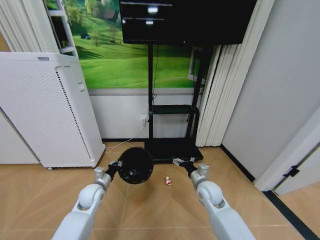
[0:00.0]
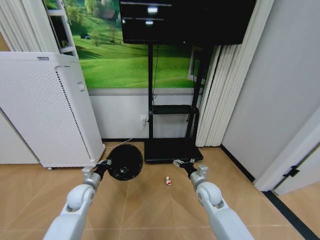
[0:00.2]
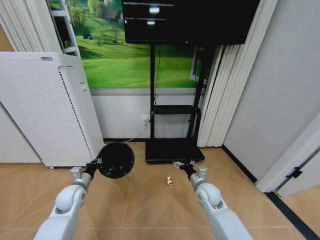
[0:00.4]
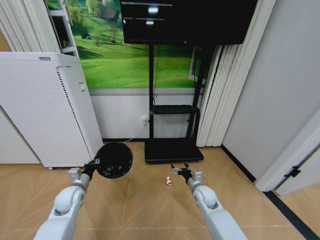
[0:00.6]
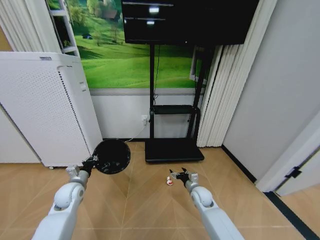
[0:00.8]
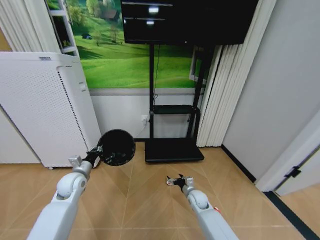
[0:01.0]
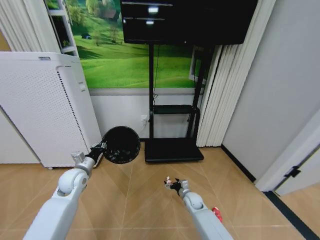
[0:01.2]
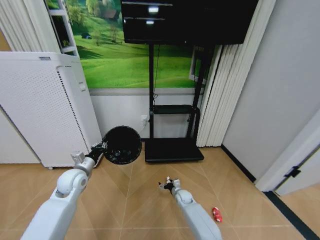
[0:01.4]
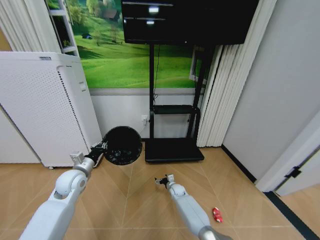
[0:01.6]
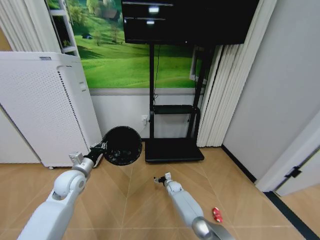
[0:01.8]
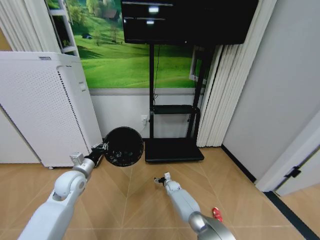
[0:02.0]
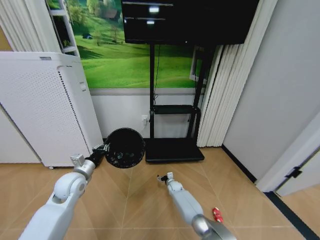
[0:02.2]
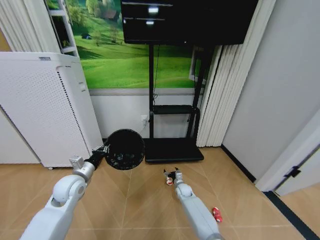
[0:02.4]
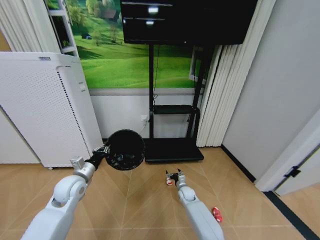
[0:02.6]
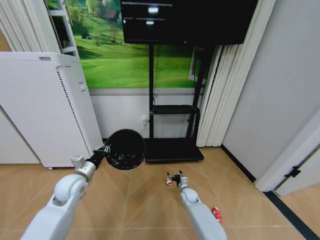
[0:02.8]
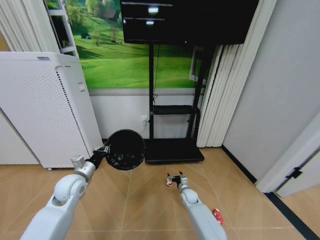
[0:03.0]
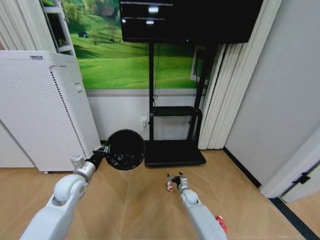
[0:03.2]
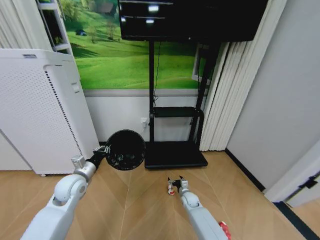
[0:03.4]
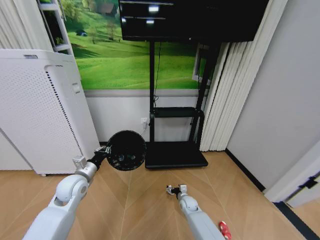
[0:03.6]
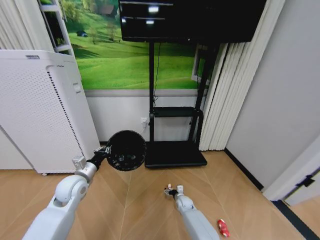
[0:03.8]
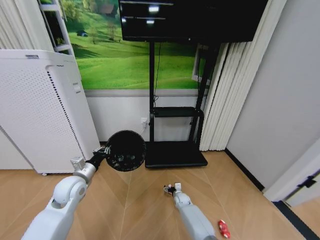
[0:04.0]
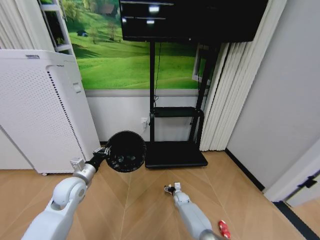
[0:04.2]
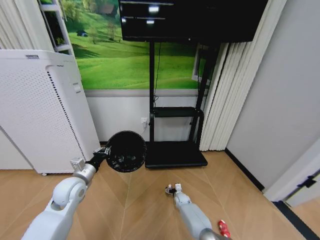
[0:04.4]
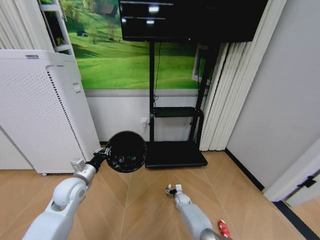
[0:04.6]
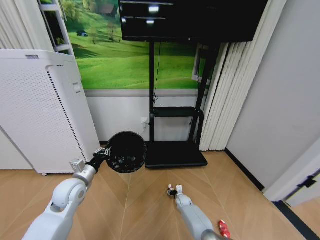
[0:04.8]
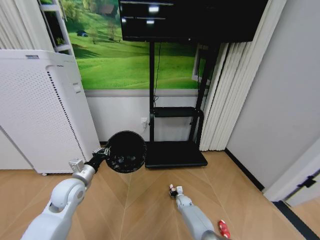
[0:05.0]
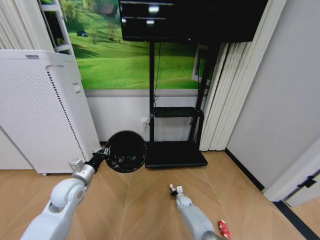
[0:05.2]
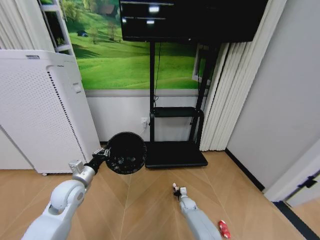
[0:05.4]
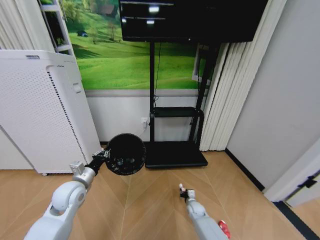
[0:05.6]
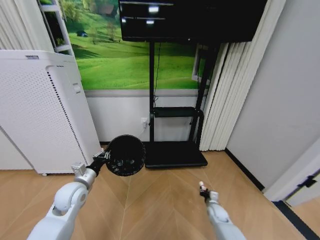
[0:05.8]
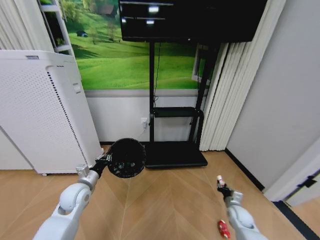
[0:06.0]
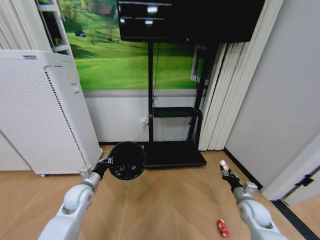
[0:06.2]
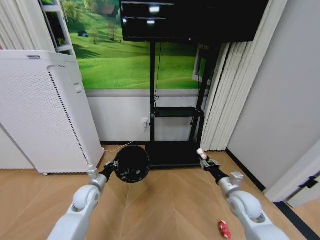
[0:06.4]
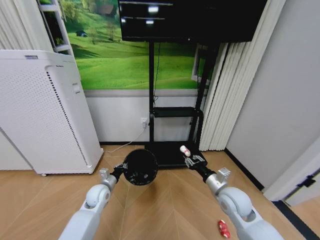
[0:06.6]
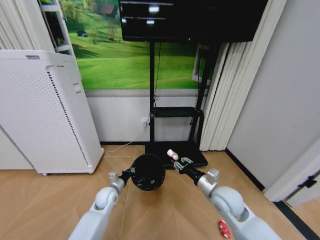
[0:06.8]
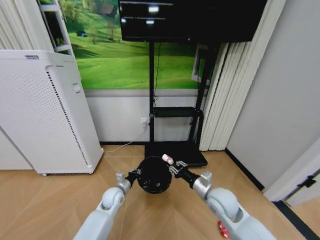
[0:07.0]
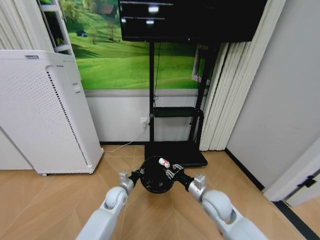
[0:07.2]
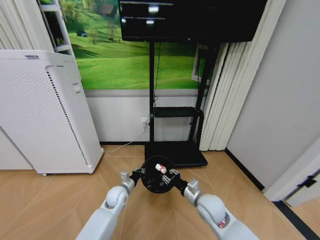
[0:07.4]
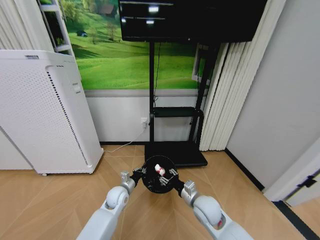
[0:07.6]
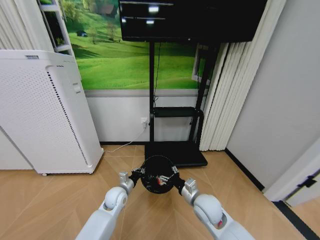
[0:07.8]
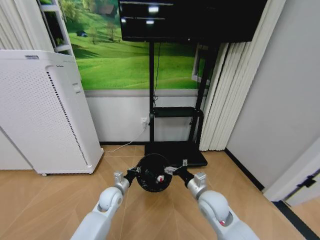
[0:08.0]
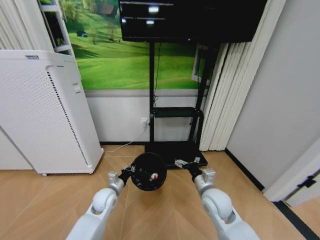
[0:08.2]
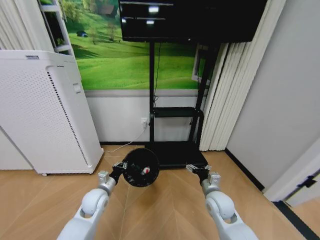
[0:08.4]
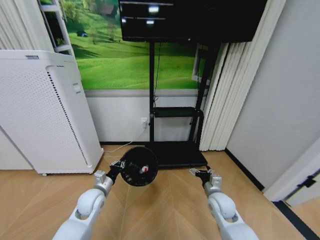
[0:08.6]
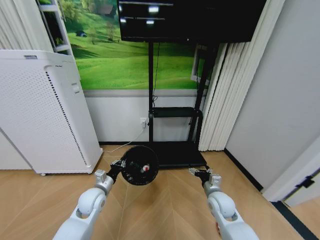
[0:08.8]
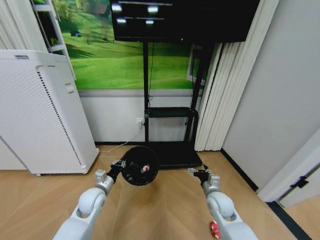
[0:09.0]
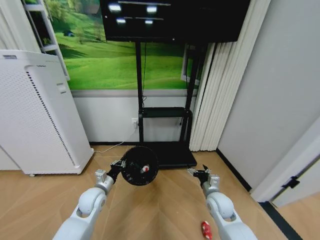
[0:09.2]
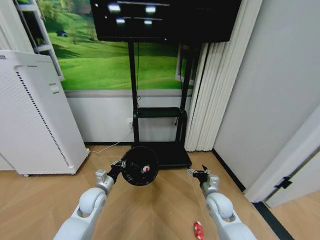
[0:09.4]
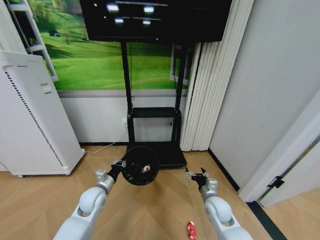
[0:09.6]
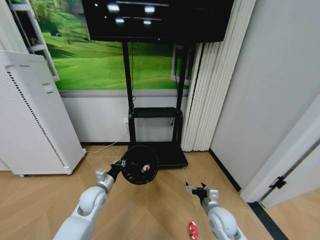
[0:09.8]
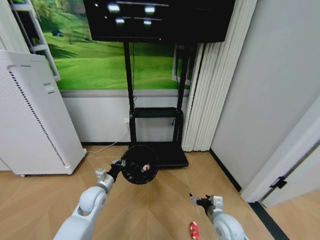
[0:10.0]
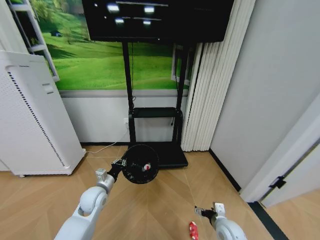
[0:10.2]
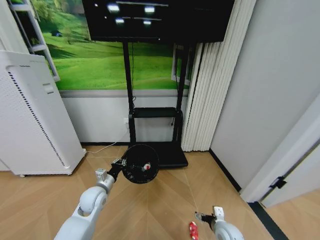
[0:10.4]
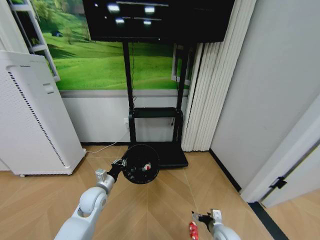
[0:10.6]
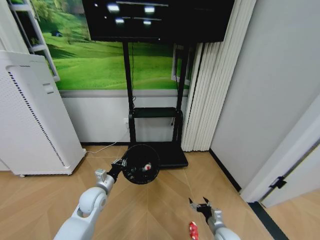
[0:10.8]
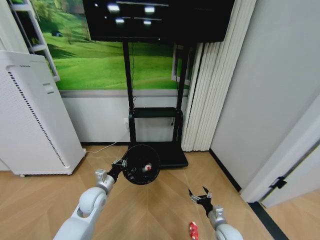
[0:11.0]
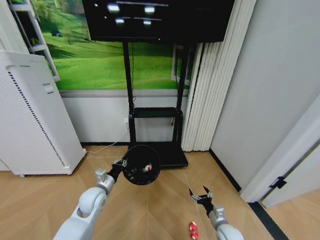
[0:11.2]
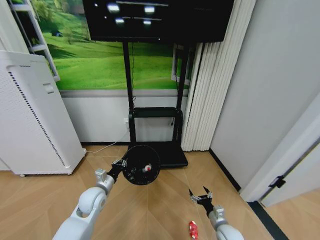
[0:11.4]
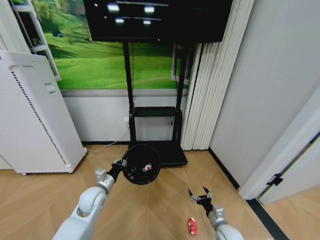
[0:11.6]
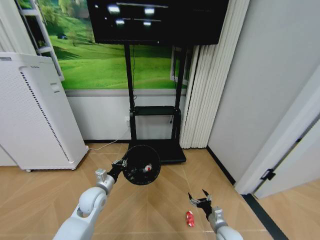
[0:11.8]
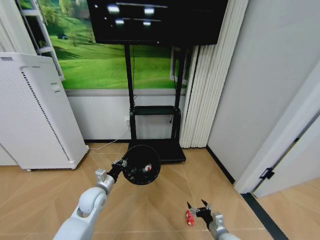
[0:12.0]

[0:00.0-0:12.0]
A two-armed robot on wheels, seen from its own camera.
Task of the whole recording: Pick up the trash bin and place the garbage on the floor into it.
0:00.0 to 0:01.6: The right gripper goes roughly 25 cm downward and forward. The left gripper is displaced upward and to the left by roughly 10 cm.
0:01.6 to 0:03.0: The right gripper travels to the right by approximately 5 cm.
0:03.0 to 0:04.4: The right gripper goes roughly 10 cm downward.
0:04.4 to 0:06.0: The right gripper heads to the right, upward and backward, covering roughly 30 cm, and closes.
0:06.0 to 0:07.6: The right gripper is displaced to the left and upward by some 25 cm, while the left gripper travels to the right and downward by some 15 cm.
0:07.6 to 0:09.0: The left gripper shifts approximately 10 cm to the left and upward. The right gripper is displaced to the right by about 10 cm, and opens its fingers.
0:09.0 to 0:10.4: The right gripper goes approximately 10 cm downward and backward.
0:10.4 to 0:12.0: The right gripper ends up about 5 cm from where it was.

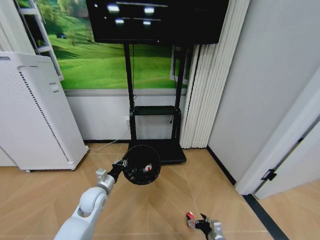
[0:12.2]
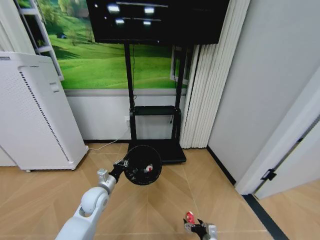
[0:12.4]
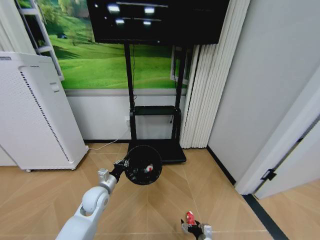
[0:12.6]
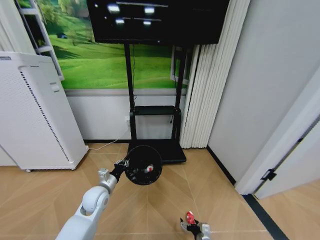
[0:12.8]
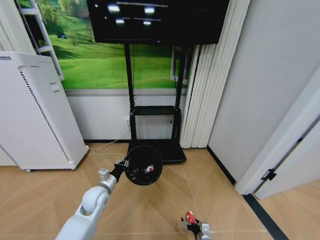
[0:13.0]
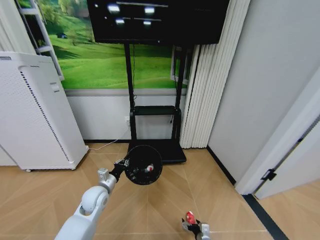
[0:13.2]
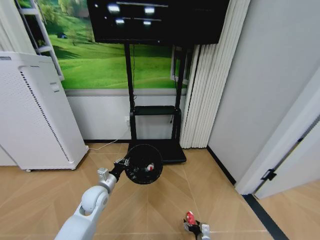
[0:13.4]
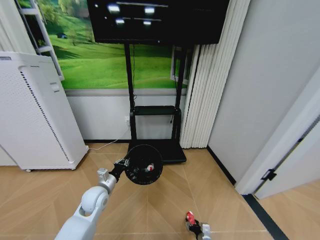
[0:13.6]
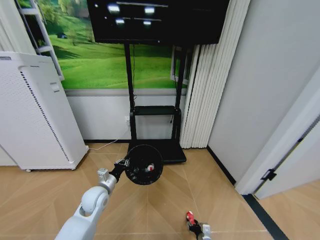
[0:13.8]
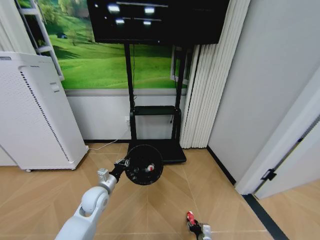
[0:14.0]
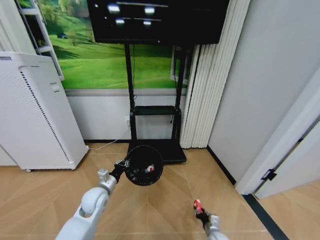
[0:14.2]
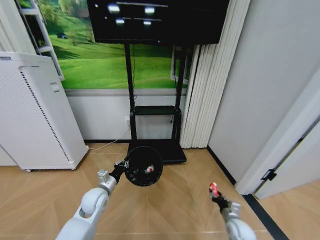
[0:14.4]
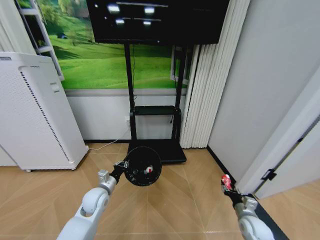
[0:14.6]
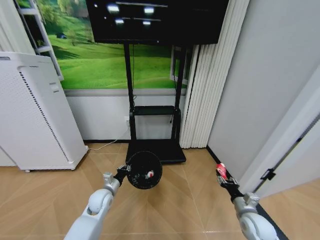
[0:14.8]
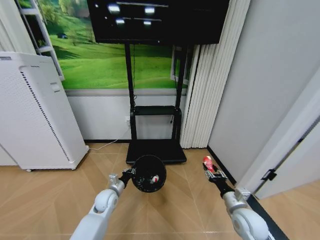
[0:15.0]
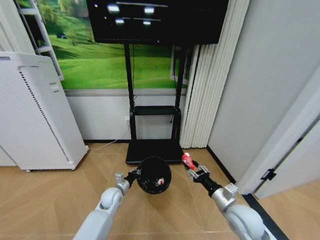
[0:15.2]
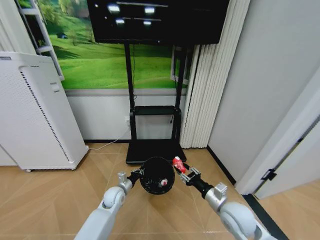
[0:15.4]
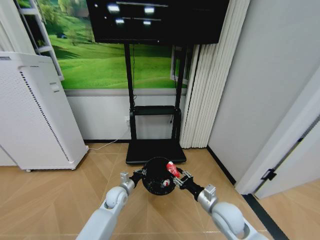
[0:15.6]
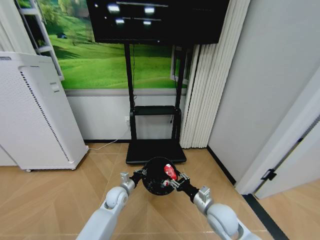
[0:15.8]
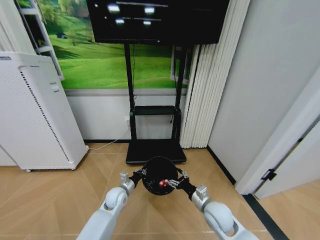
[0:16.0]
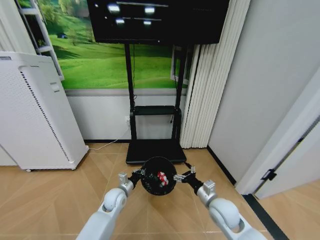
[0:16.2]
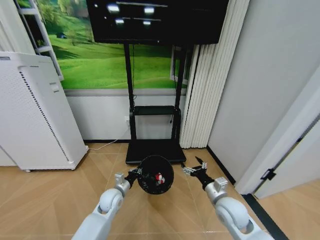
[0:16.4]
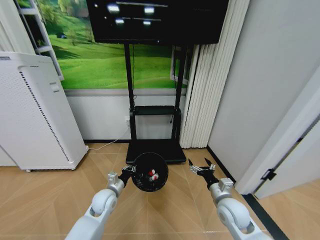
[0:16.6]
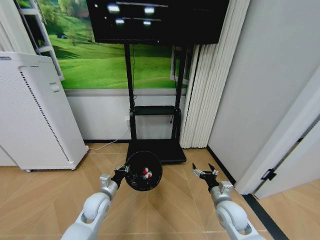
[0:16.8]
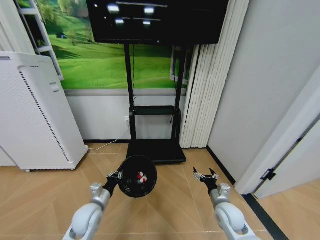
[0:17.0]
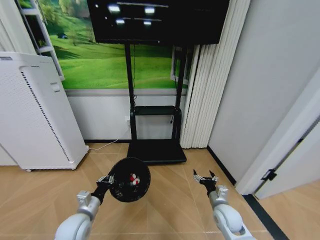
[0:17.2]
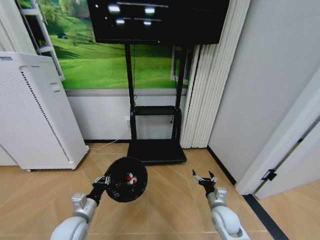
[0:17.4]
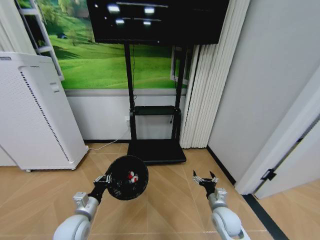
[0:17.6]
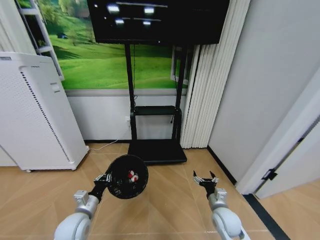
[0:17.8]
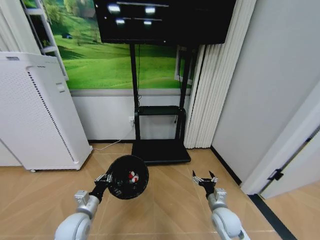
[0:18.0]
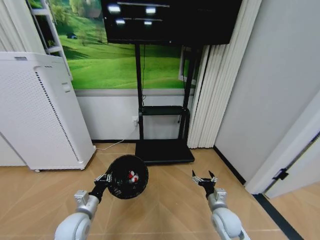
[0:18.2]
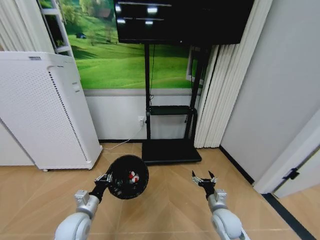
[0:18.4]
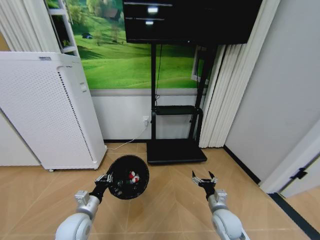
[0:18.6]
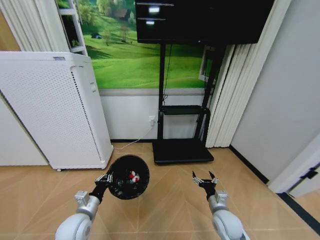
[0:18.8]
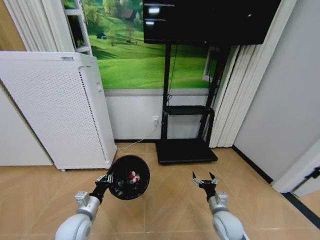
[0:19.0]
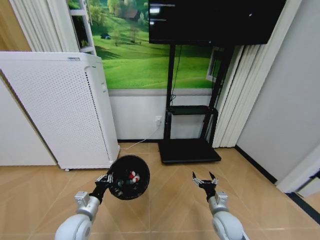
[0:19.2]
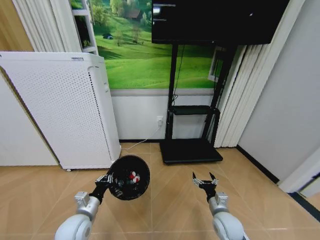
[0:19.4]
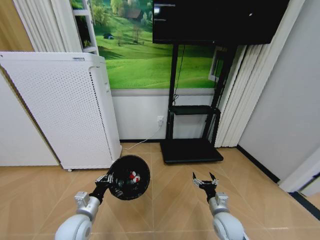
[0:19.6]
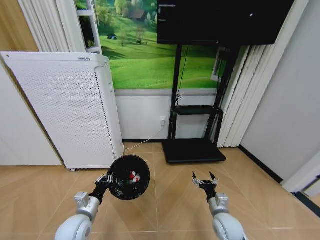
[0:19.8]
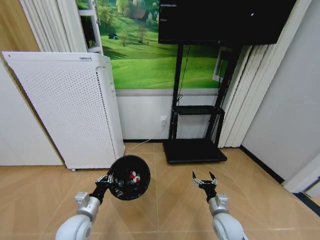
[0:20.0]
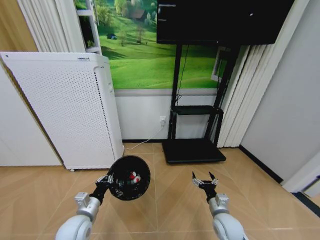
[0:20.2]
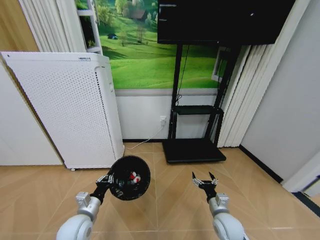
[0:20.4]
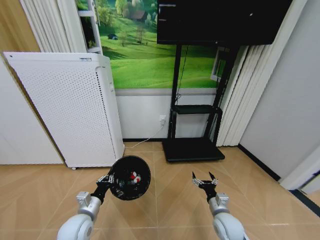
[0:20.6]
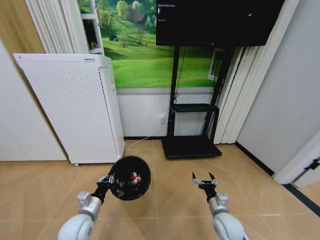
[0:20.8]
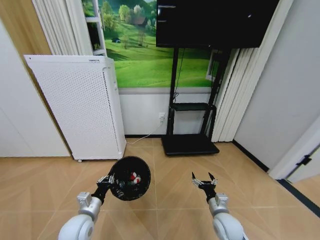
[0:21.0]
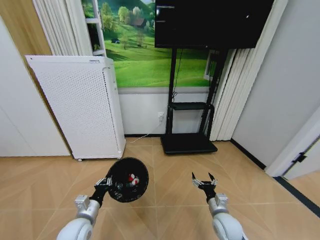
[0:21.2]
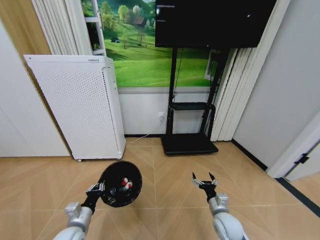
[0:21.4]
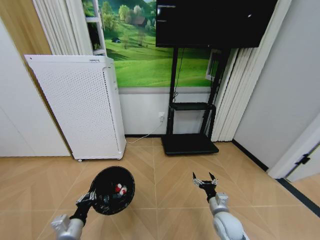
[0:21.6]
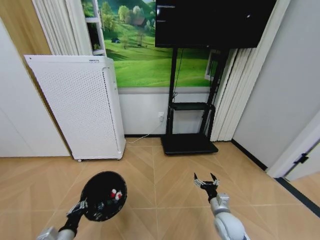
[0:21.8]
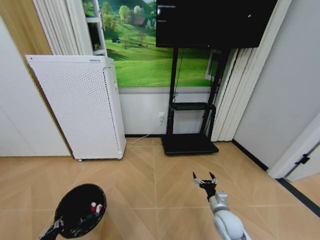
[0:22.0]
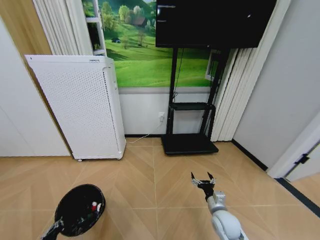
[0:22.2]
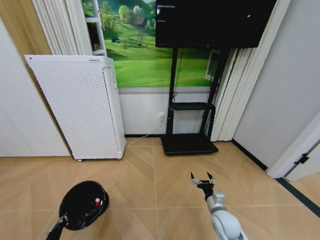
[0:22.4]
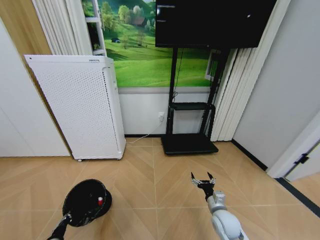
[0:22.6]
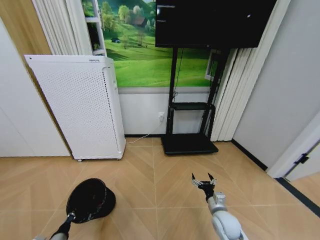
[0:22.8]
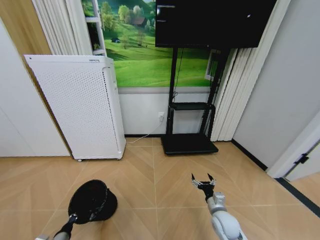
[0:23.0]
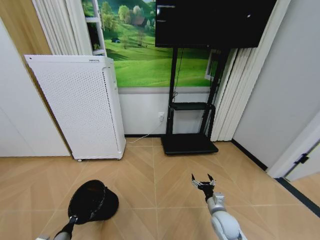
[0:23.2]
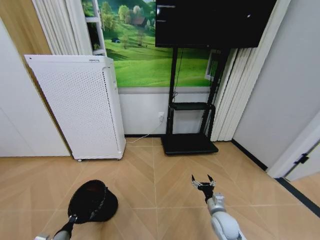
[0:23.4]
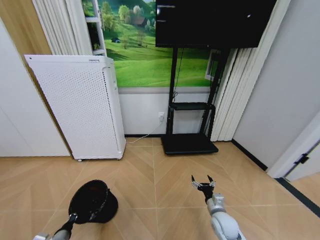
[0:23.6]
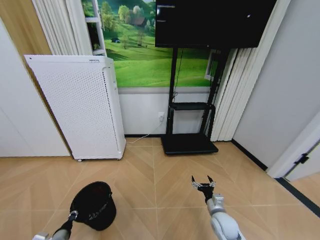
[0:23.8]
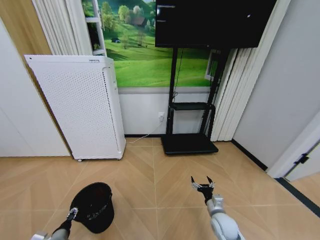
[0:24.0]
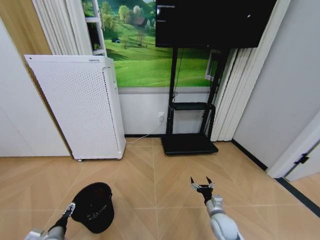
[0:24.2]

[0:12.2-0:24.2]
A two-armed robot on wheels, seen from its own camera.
Task of the whole recording: Pick up the trash bin and place the garbage on the floor into it.
0:12.2 to 0:13.8: The right gripper heads downward, covering approximately 10 cm, and closes.
0:13.8 to 0:15.2: The right gripper travels upward by about 30 cm. The left gripper moves downward, approximately 10 cm.
0:15.2 to 0:16.6: The left gripper heads upward, covering approximately 5 cm; the right gripper opens.
0:16.6 to 0:18.2: The right gripper is displaced downward by some 5 cm, while the left gripper travels backward and to the left by approximately 10 cm.
0:21.2 to 0:22.6: The left gripper is displaced to the left, downward and backward by about 20 cm.
0:22.6 to 0:24.2: The left gripper moves some 5 cm, and opens up.
